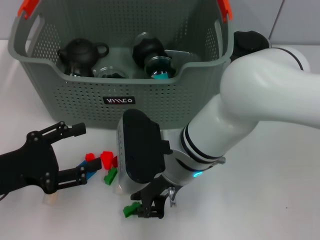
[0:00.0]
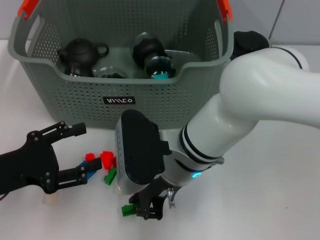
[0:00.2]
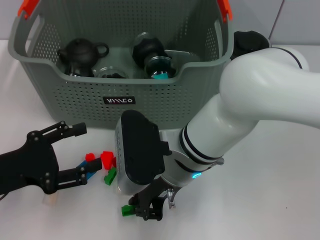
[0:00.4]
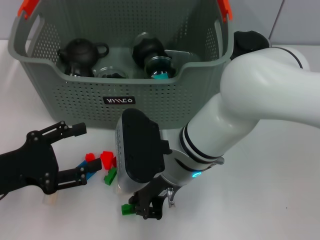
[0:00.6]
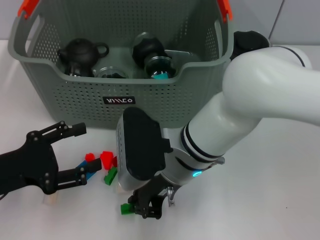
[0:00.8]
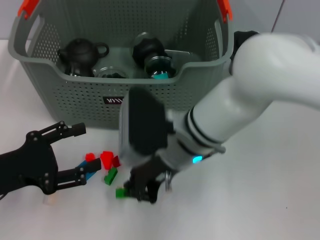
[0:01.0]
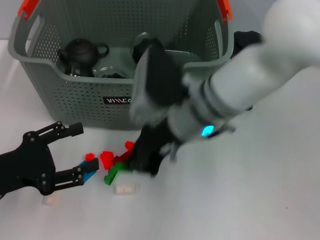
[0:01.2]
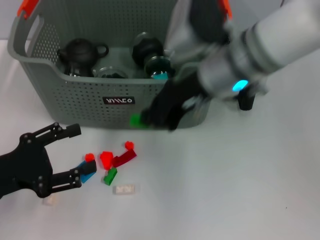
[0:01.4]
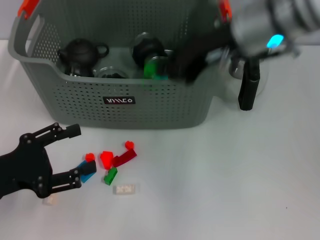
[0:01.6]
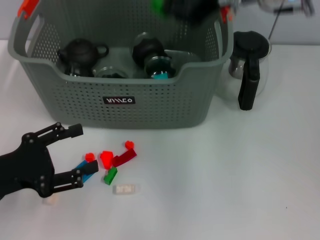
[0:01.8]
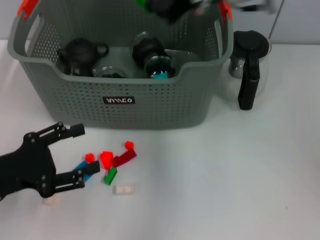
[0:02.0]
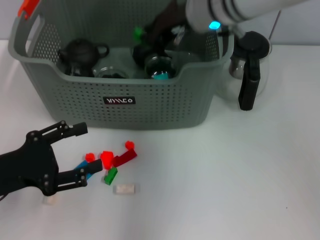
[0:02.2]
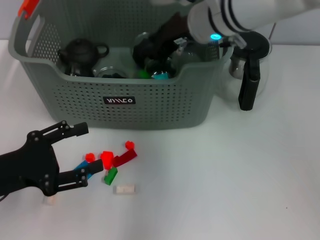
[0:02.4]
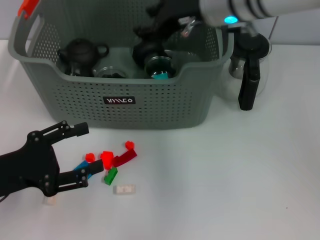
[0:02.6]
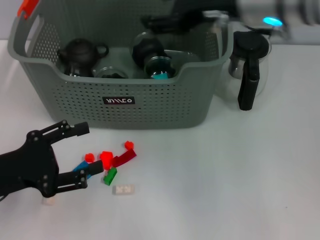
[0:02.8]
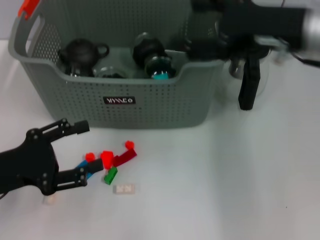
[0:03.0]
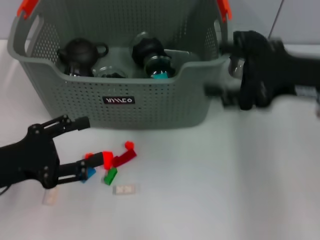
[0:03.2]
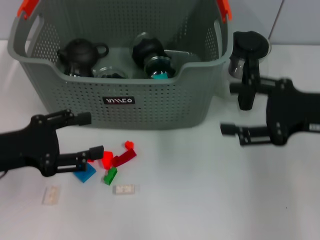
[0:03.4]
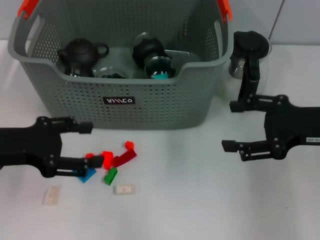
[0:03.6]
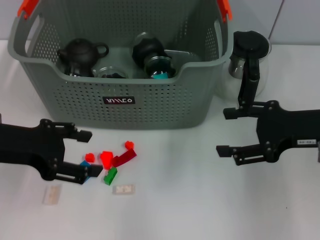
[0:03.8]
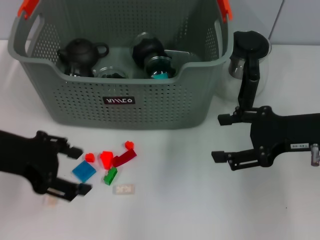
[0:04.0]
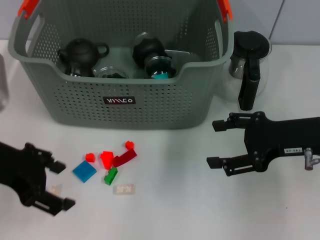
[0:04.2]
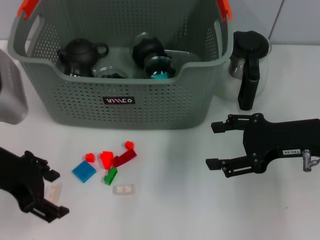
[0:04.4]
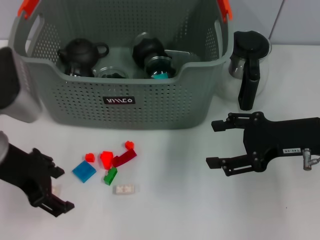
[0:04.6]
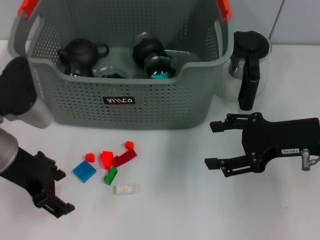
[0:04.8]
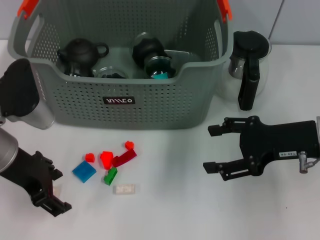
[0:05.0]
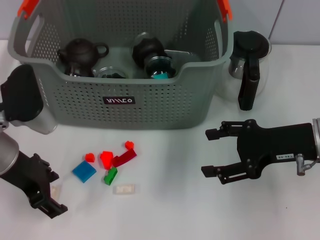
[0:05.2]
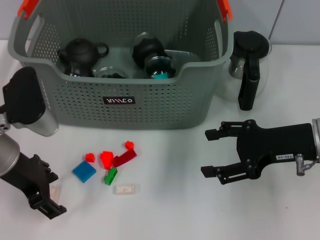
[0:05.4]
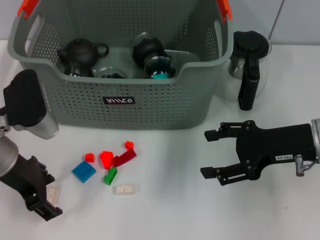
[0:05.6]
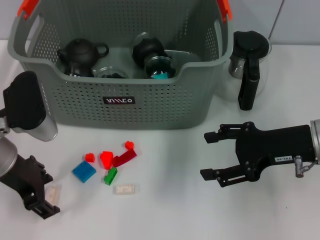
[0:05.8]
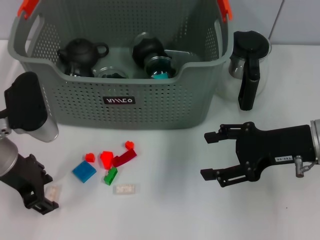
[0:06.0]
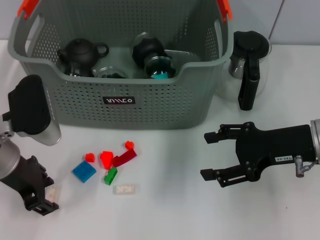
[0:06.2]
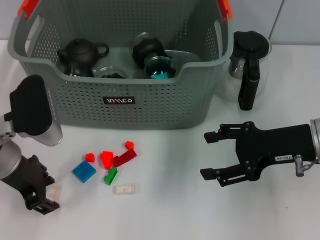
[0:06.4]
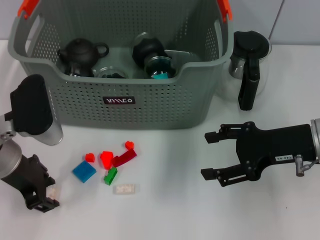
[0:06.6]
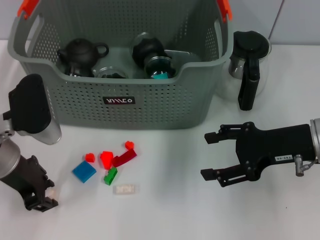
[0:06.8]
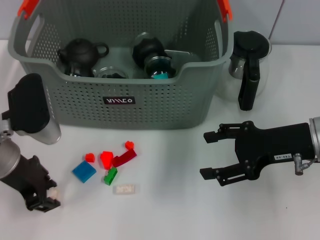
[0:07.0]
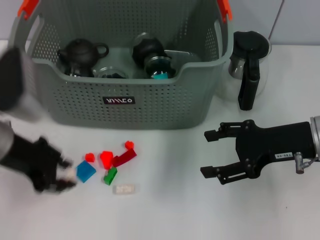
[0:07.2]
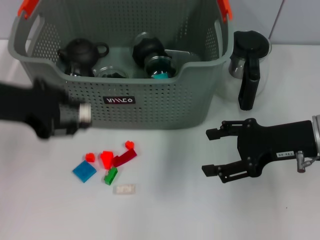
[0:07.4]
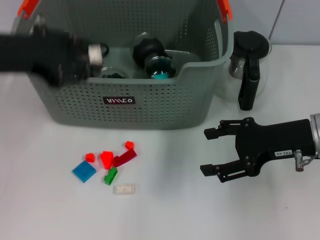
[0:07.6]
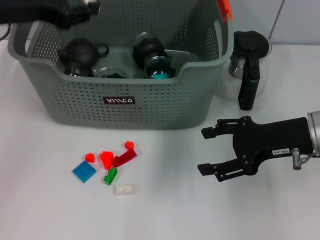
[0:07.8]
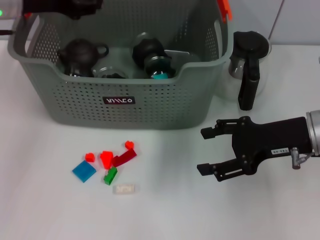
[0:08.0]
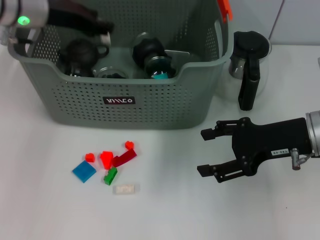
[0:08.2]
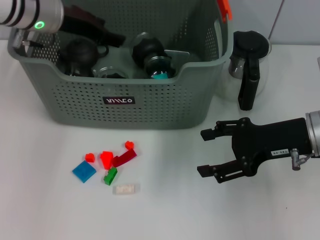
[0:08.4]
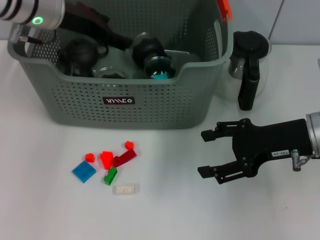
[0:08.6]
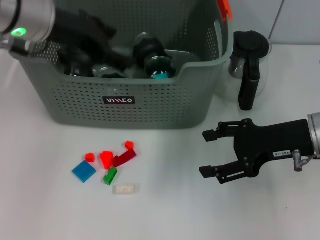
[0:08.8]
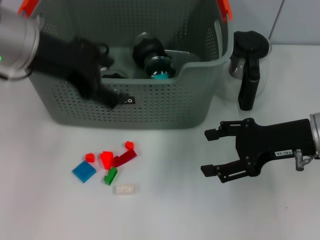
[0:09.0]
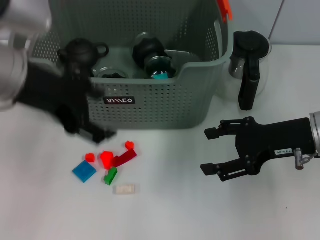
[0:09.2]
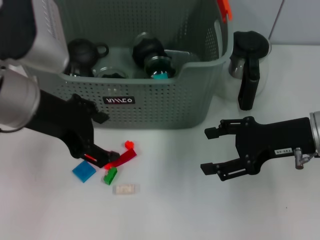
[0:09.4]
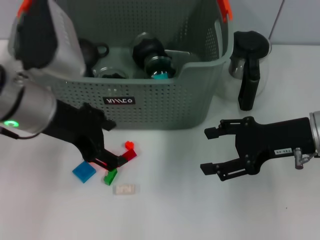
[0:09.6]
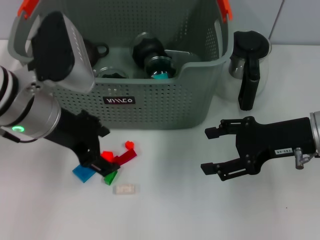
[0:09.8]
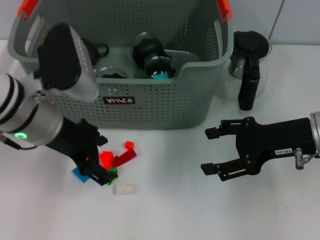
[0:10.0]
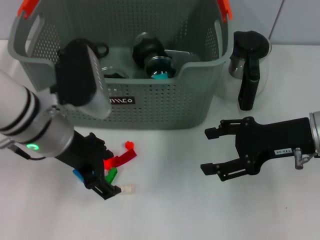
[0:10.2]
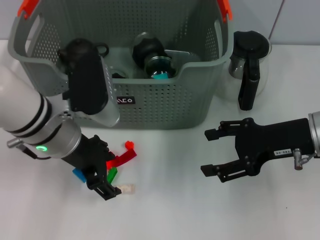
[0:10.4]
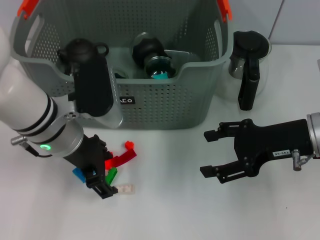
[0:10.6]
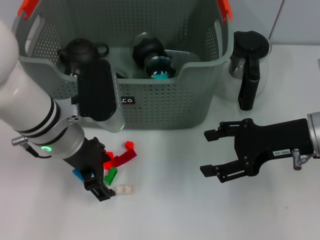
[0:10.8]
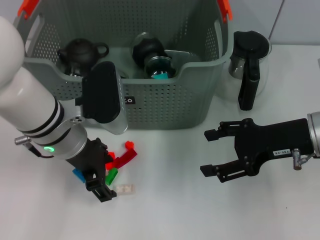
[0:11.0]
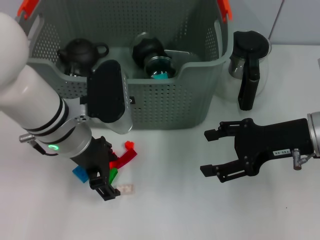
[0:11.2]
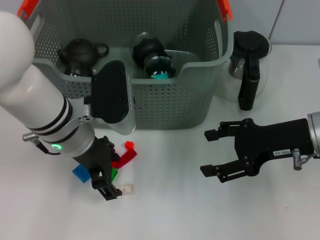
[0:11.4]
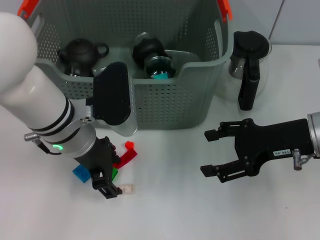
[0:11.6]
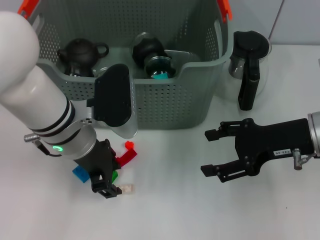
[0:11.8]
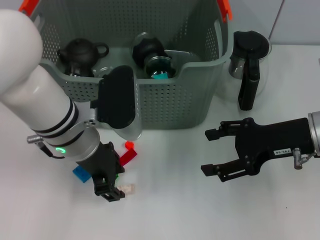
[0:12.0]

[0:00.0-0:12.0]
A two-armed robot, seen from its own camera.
Task of the whole recording: pick up the teacup on the table and place it into the storage bin, pick up the block on the table and place it into the storage bin.
Step, 0.6 to 2.6 s: Place the green block in the storage box with right gripper.
Step, 3.0 to 6.8 s: Grasp the white block with left gripper.
Step, 7.0 to 8.4 s: Place the white block in the storage box with left gripper.
0.0 to 1.6 s: The right gripper moves upward, to the right and forward, some 20 cm.
1.6 to 3.0 s: The right gripper goes roughly 5 cm to the right, and opens.
3.0 to 4.4 s: The right gripper travels downward and to the right by roughly 10 cm. The left gripper heads upward, covering approximately 10 cm.
4.4 to 6.0 s: The left gripper goes roughly 5 cm downward.
6.0 to 7.6 s: The left gripper shifts about 10 cm upward, and closes its fingers.
7.6 to 9.0 s: The left gripper heads to the right, covering some 5 cm, reaches roughly 15 cm forward, then returns, and opens its fingers.
9.0 to 10.4 s: The left gripper shifts approximately 10 cm downward.
10.4 to 12.0 s: The grippers stay close to where they were, moving slightly.

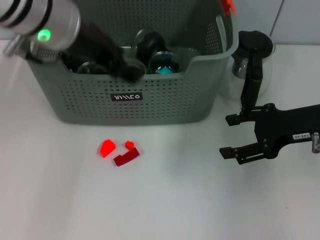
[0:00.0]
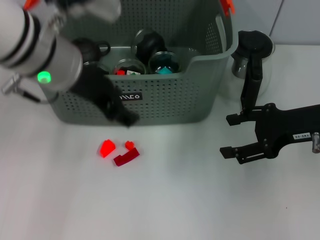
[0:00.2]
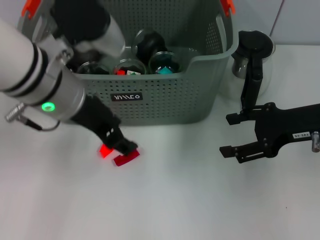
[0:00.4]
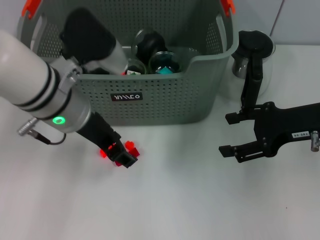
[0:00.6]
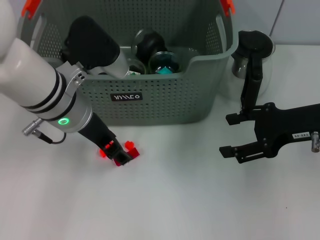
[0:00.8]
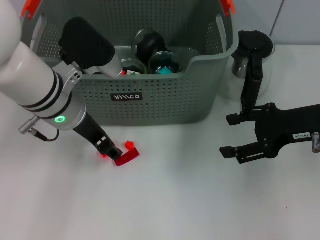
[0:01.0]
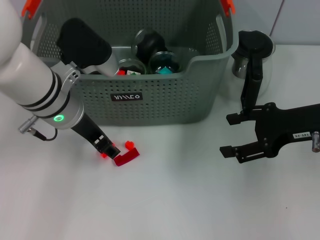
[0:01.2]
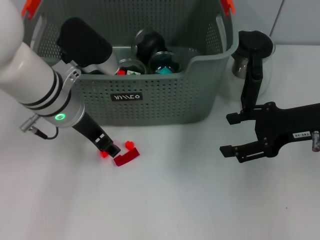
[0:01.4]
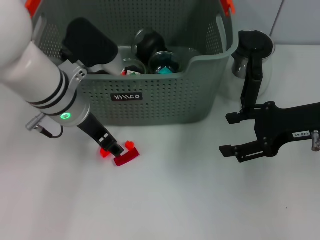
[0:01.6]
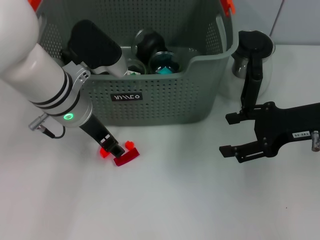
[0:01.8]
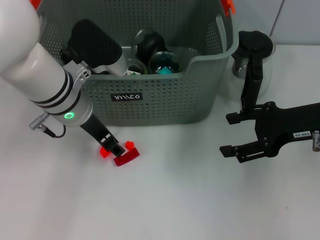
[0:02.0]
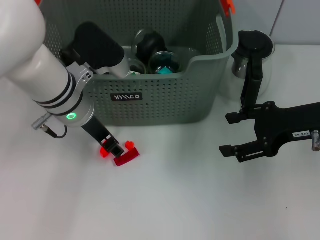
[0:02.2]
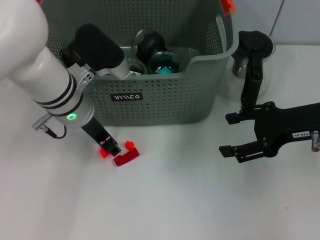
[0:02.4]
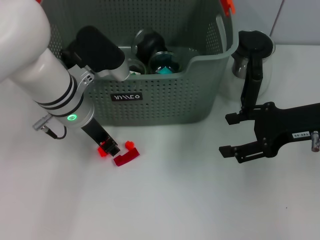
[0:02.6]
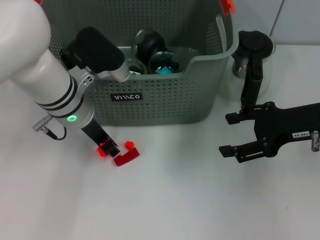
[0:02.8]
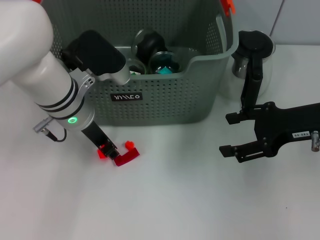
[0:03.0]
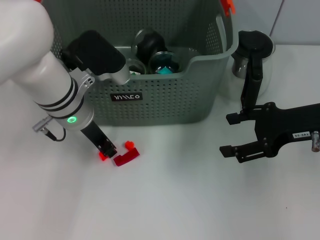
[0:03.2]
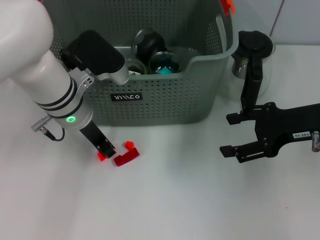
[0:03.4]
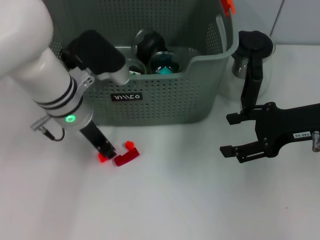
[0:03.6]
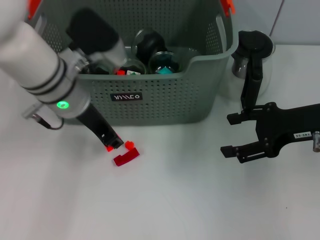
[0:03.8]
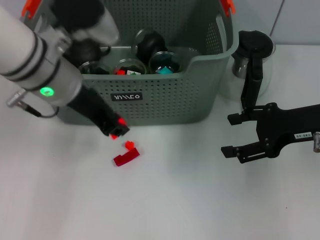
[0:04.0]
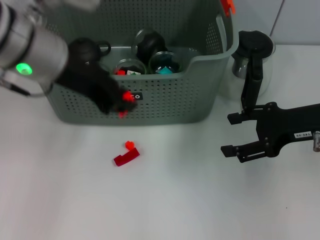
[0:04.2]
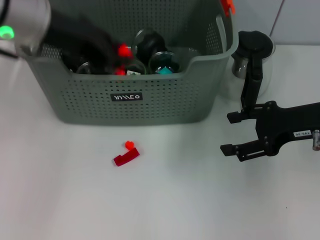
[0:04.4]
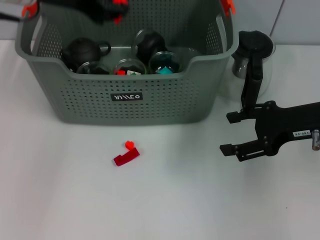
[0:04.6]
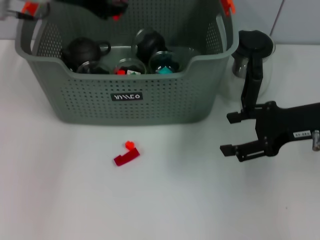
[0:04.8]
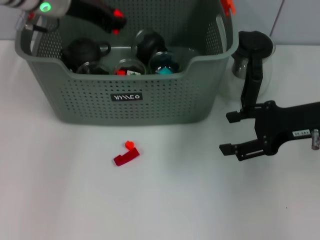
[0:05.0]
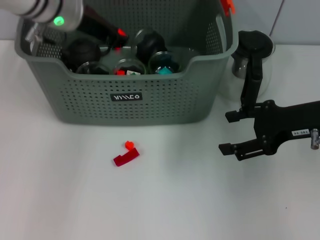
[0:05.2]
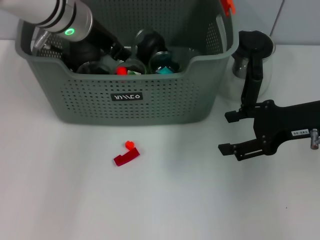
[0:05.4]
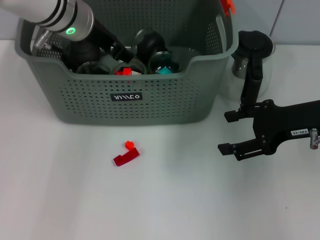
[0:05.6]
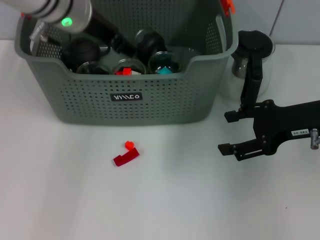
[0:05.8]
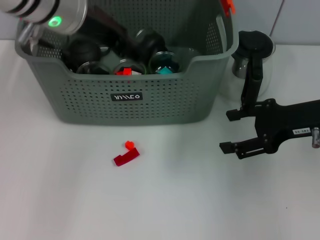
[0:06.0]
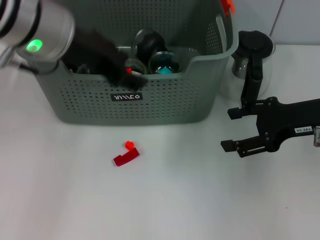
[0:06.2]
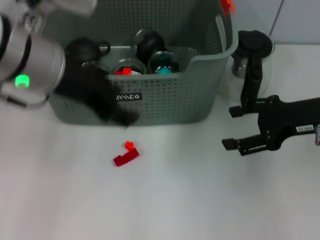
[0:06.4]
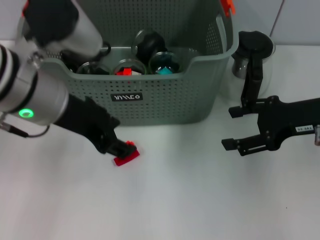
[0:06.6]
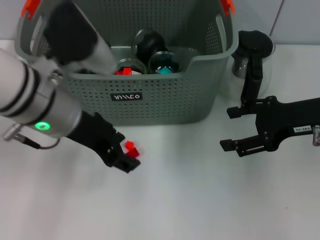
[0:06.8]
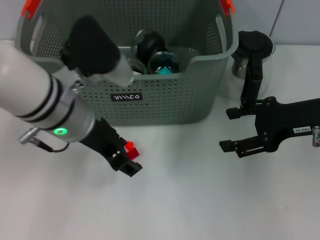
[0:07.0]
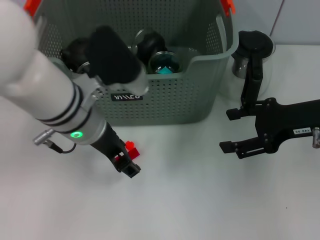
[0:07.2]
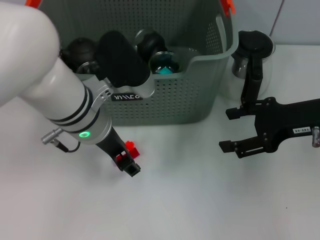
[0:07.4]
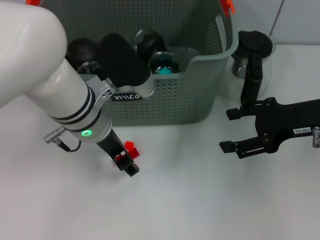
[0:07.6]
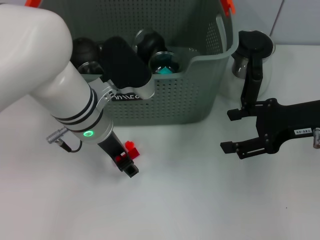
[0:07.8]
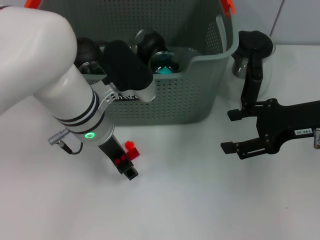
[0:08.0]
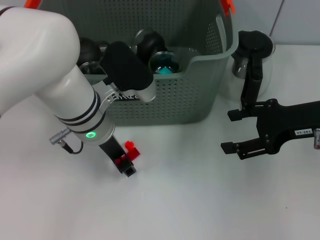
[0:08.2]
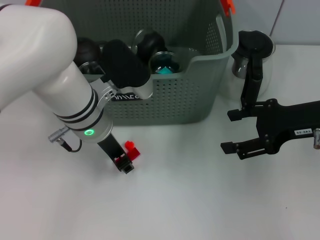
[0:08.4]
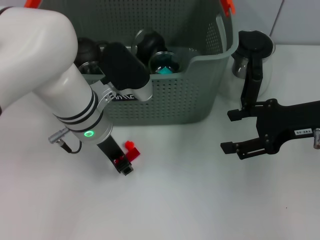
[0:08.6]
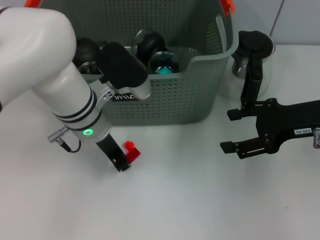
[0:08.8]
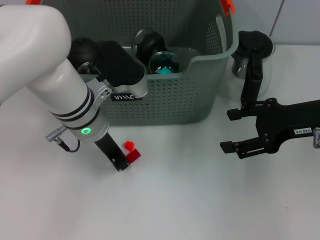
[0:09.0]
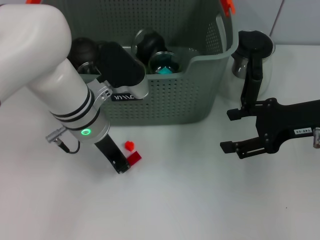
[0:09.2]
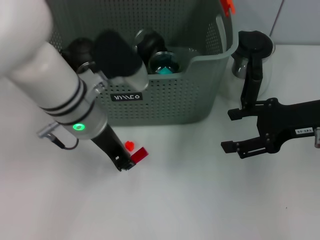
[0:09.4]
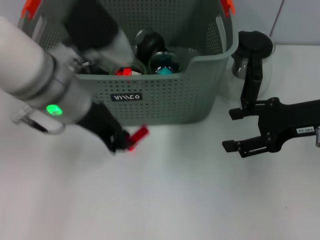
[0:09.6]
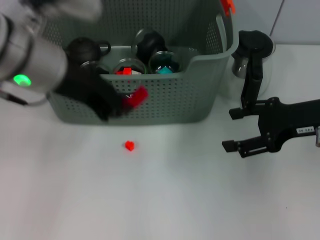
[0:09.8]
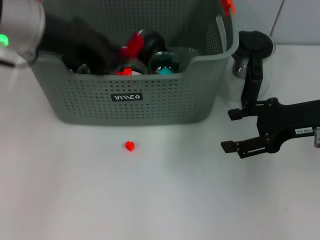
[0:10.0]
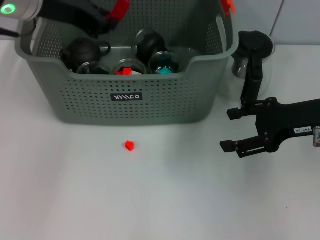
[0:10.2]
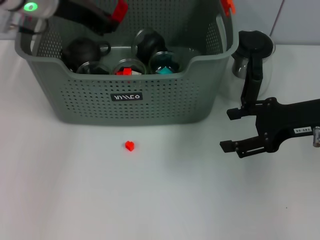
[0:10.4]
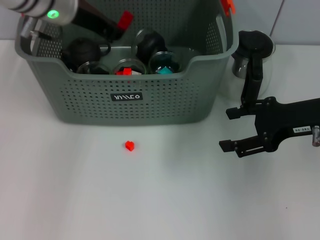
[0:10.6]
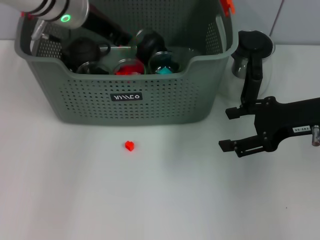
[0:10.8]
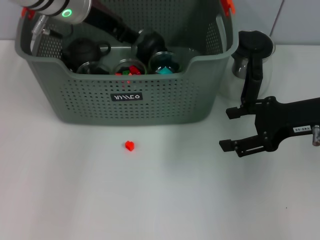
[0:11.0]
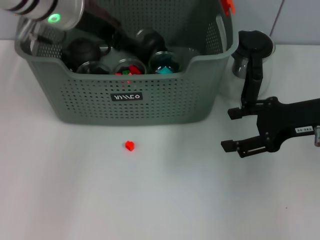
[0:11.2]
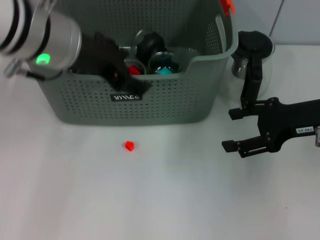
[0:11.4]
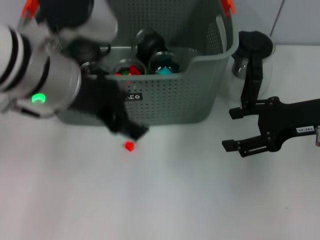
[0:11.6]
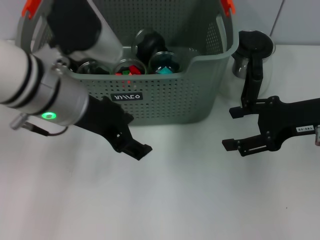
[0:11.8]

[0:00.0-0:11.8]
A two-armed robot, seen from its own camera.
Task of the whole recording: pick up the teacup on the table and place it into the storage bin, pick up the block on the table and place it into the storage bin.
Step, 0.0 to 3.4 s: Grasp the orange block with left gripper.
Step, 3.8 to 5.8 s: Place the orange block in the storage box with left gripper.
Step, 6.0 to 9.2 s: Grasp the red block with left gripper.
Step, 9.4 to 10.8 s: Place the red block in the storage box with left gripper.
0.0 to 1.4 s: The left gripper goes about 10 cm downward.
1.4 to 3.0 s: The grippers make only small movements.
3.0 to 4.4 s: The left gripper travels upward by approximately 15 cm.
4.4 to 6.0 s: The left gripper opens up.
6.0 to 7.4 s: The left gripper shifts about 10 cm downward and backward.
7.4 to 8.8 s: There are only small adjustments of the grippers.
8.8 to 10.4 s: The left gripper moves upward, to the left and forward, some 15 cm.
10.4 to 11.8 s: The left gripper moves backward, approximately 10 cm, and opens its fingers.
